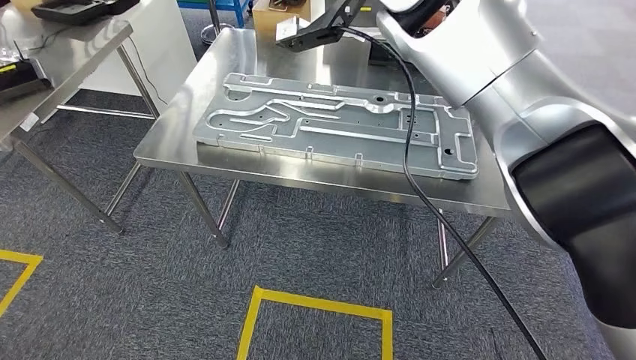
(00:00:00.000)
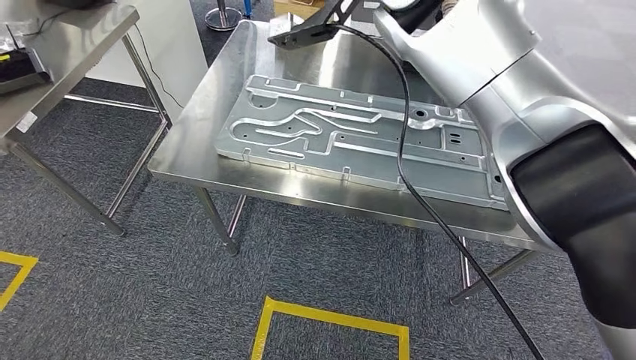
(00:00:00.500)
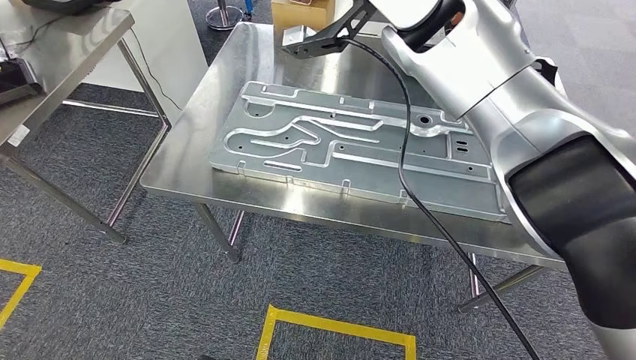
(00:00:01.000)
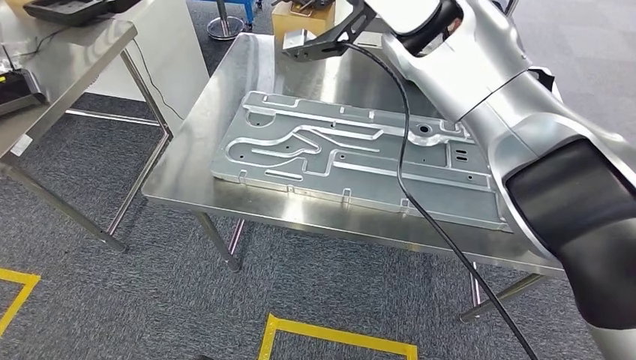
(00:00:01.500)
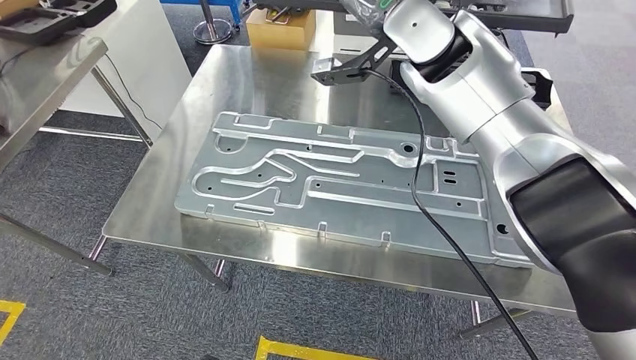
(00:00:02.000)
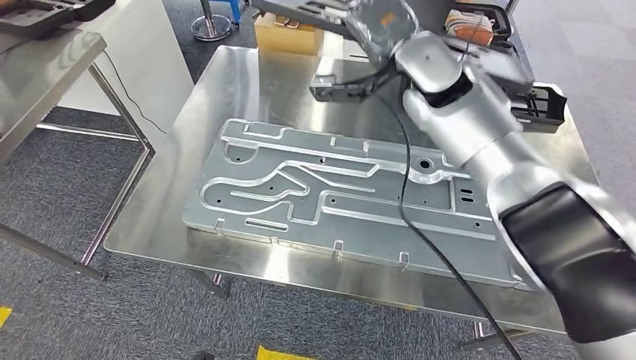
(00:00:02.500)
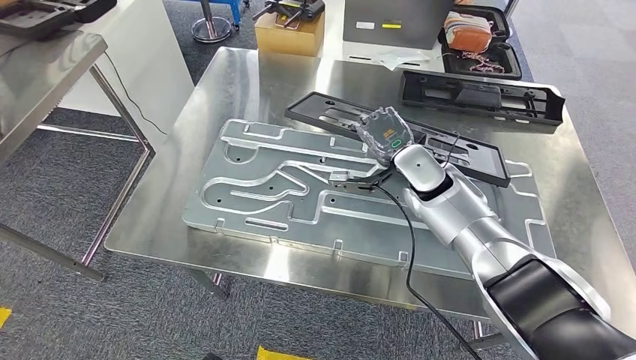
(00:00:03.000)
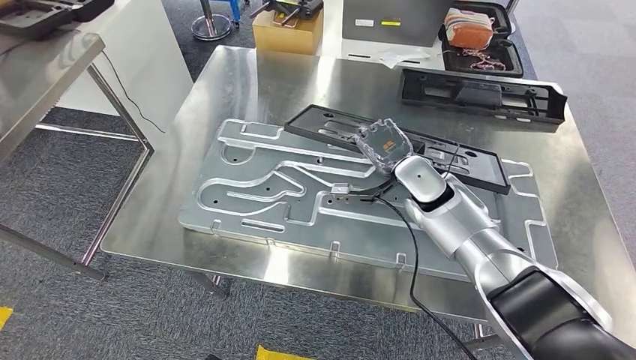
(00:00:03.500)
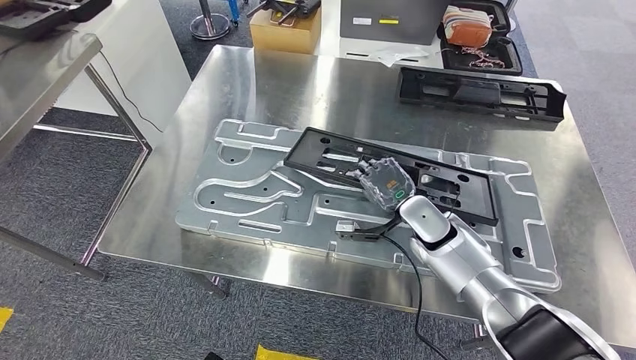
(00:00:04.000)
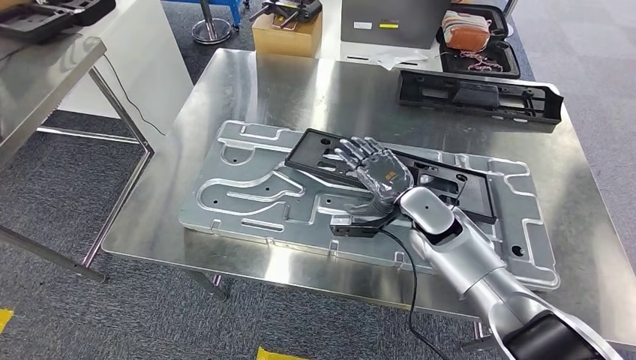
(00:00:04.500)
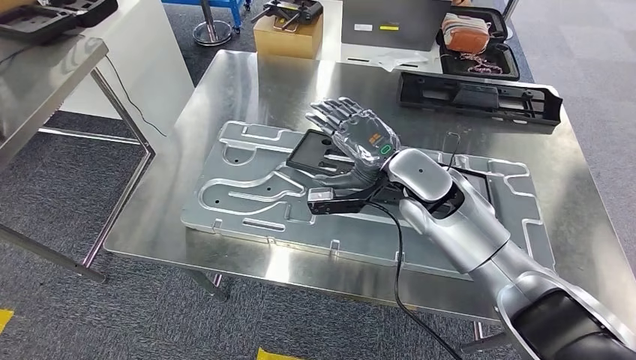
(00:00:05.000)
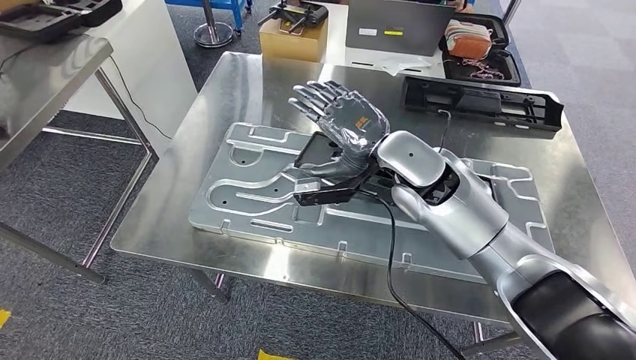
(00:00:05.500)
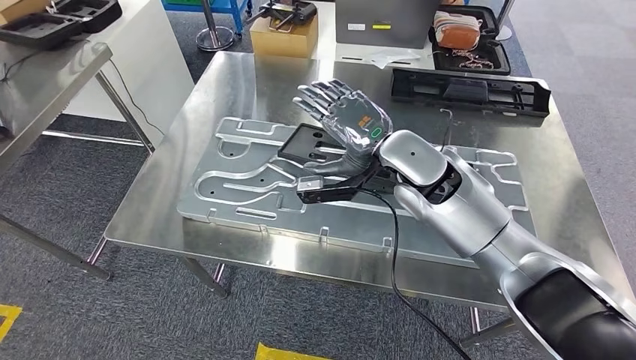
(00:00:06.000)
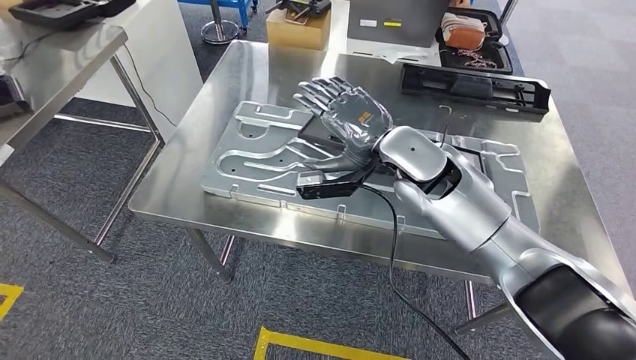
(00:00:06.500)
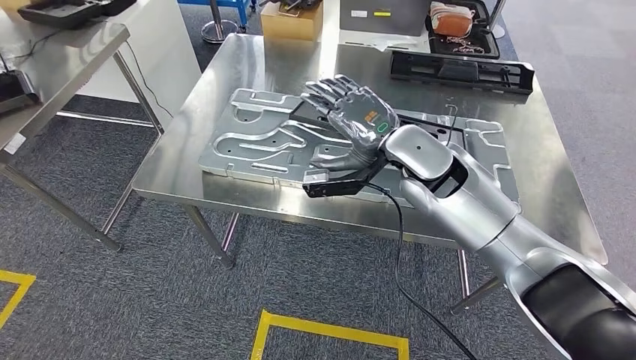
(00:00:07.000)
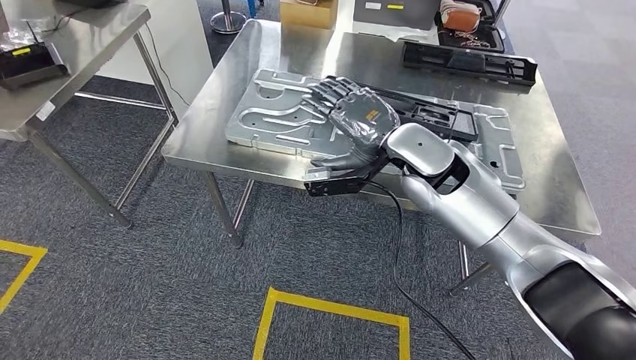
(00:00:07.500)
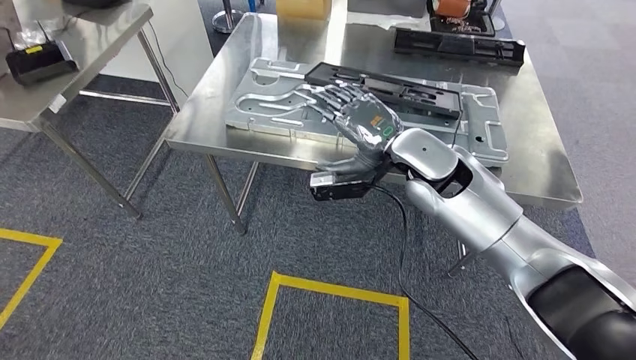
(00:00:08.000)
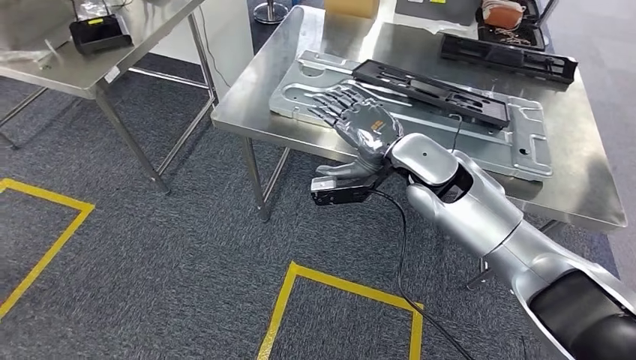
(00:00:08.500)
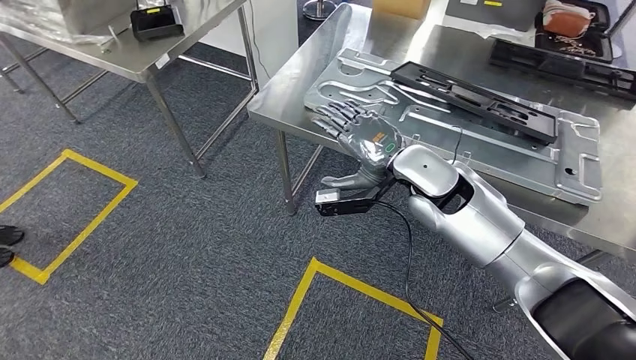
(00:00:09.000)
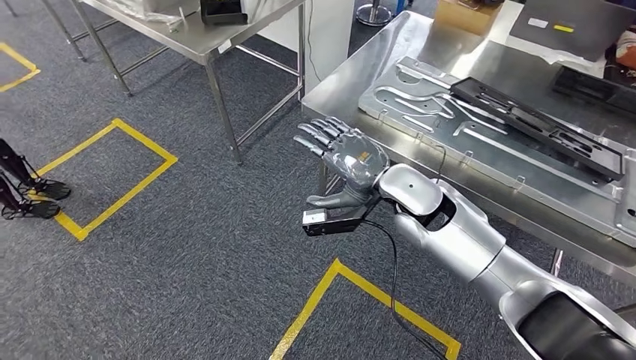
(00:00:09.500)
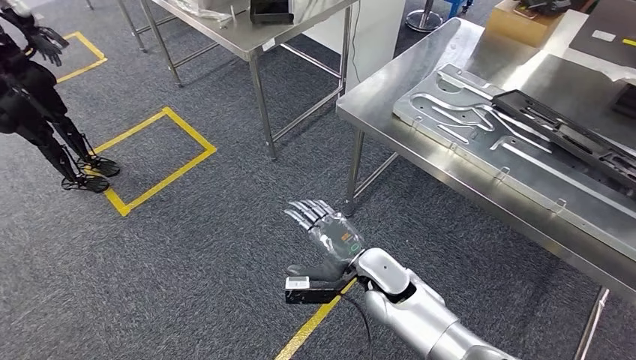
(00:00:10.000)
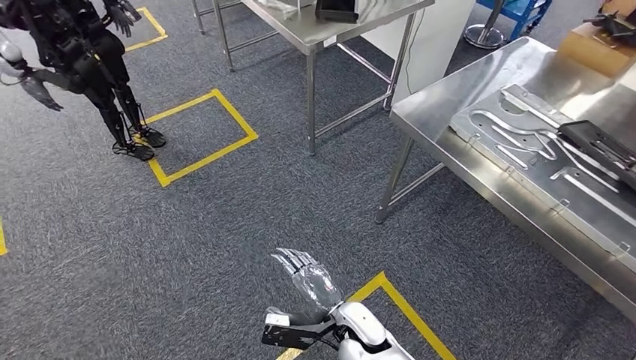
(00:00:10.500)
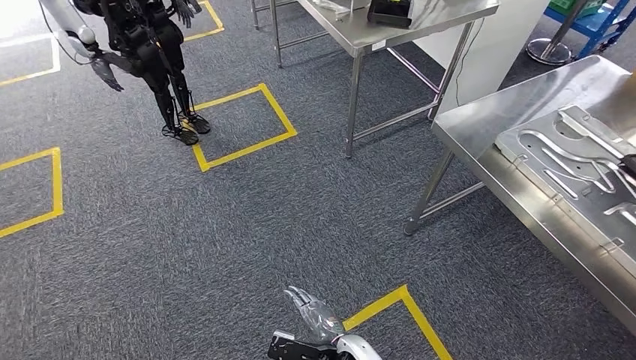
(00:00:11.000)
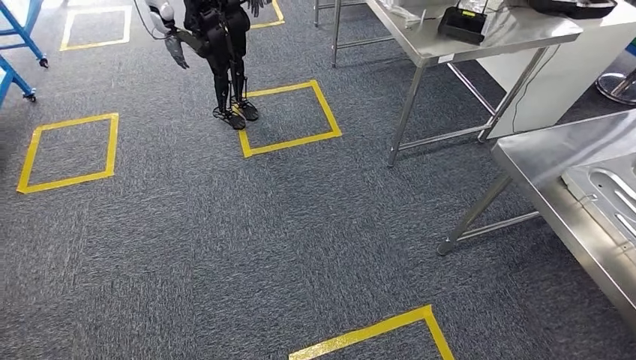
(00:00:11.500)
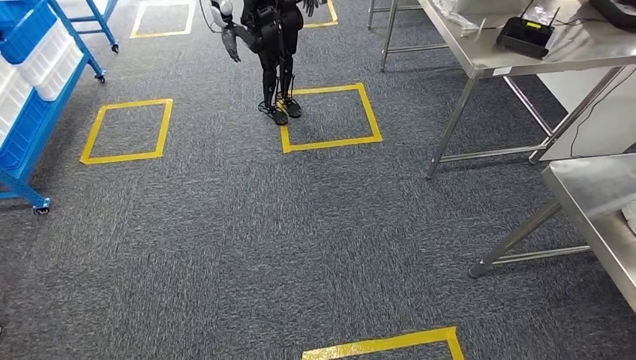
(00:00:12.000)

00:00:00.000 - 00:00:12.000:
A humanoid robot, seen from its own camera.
Step, 00:00:03.500 - 00:00:08.000: Insert the large material into the corresponding slot on the workbench.

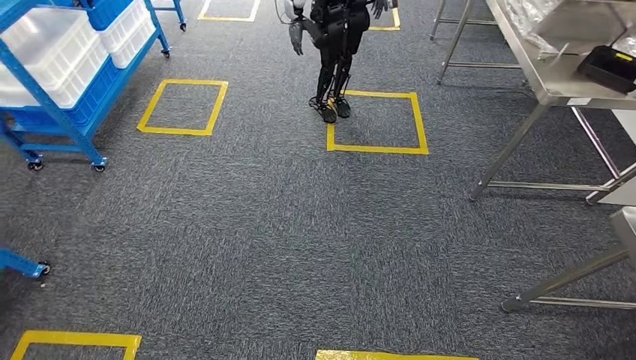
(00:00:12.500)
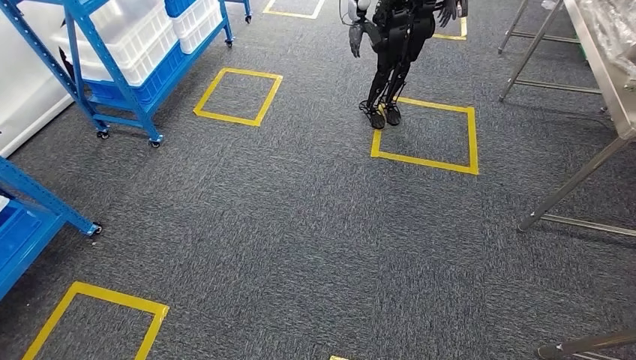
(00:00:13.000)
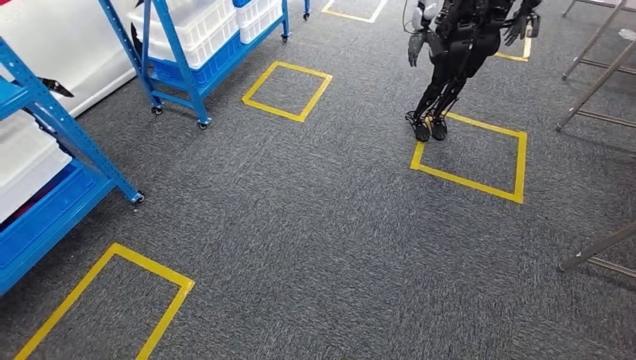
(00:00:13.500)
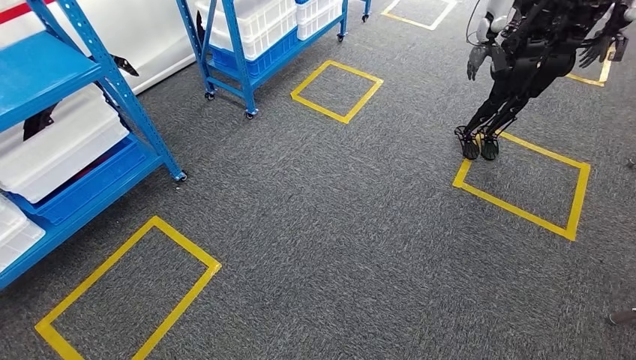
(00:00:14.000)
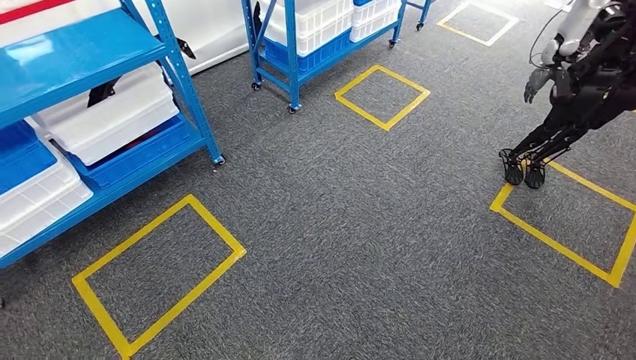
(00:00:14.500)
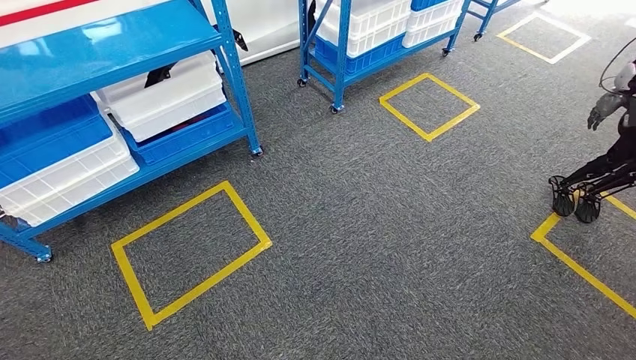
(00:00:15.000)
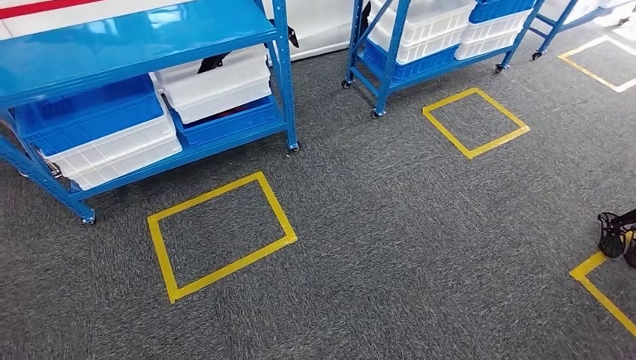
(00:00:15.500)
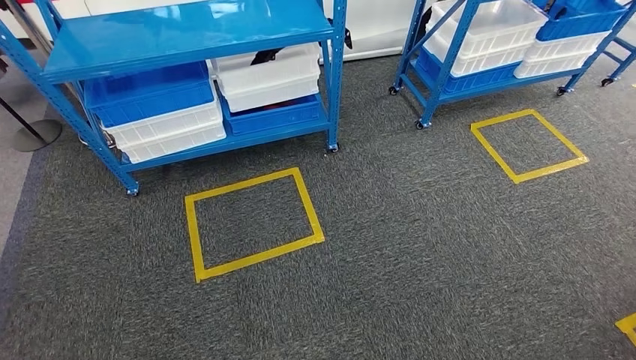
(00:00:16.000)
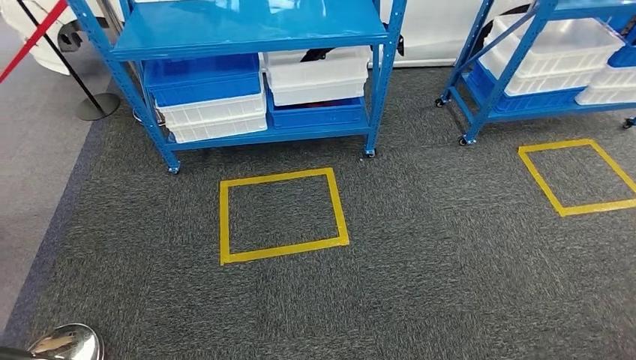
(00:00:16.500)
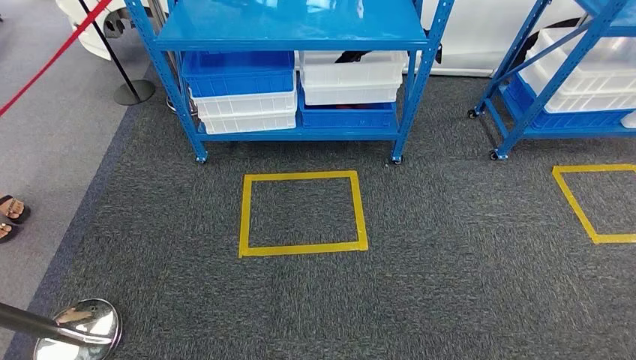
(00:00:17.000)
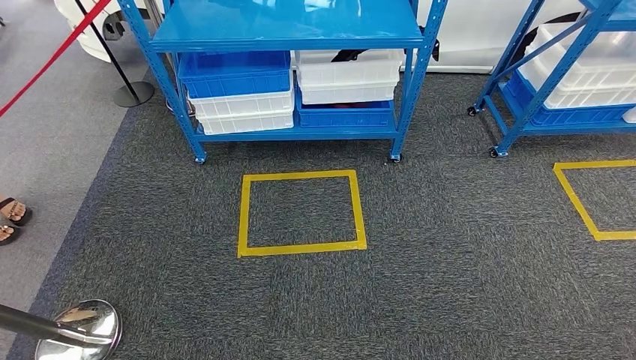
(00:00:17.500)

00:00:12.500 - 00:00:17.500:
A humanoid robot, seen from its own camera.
Step, 00:00:12.500 - 00:00:17.500: Move to the initial position of the shelf.

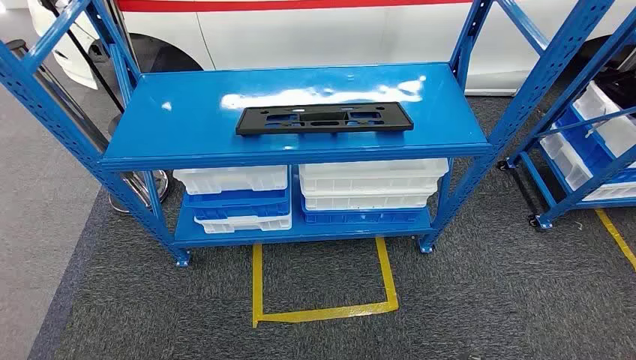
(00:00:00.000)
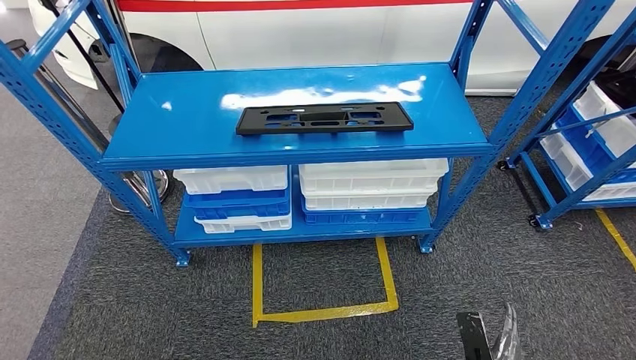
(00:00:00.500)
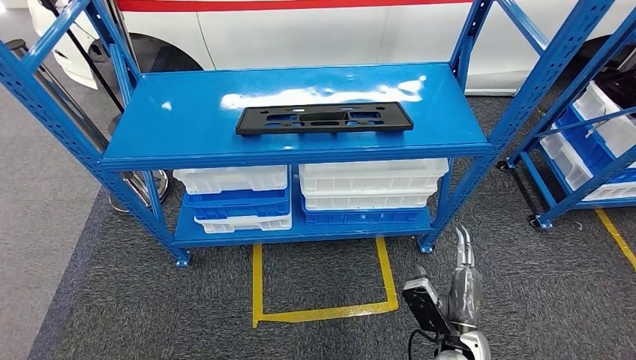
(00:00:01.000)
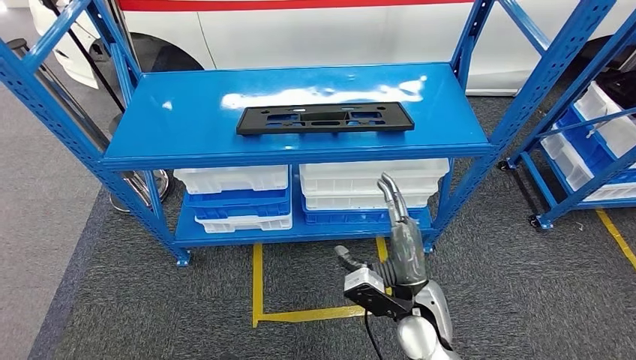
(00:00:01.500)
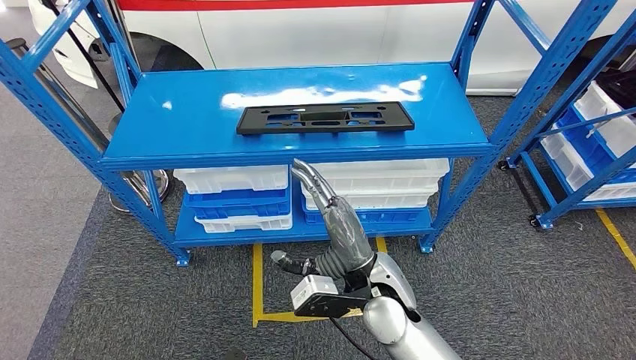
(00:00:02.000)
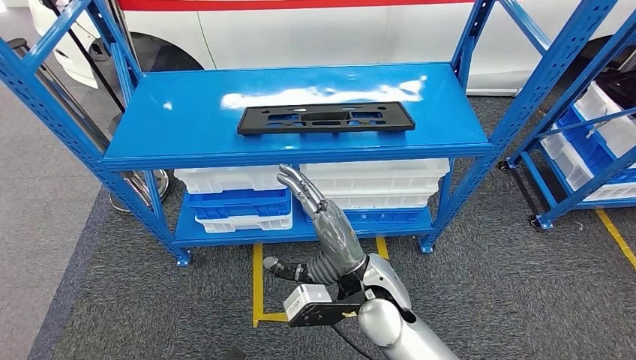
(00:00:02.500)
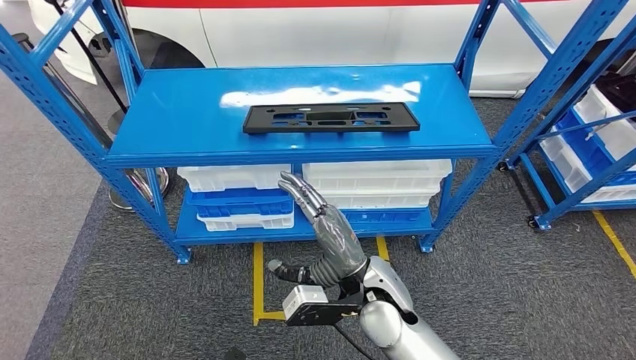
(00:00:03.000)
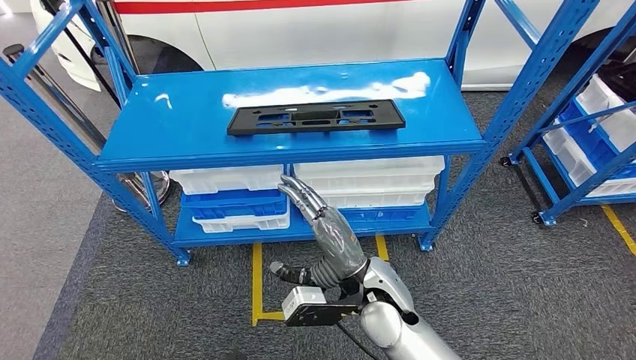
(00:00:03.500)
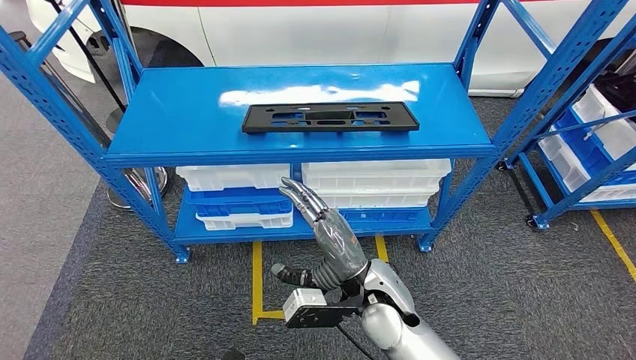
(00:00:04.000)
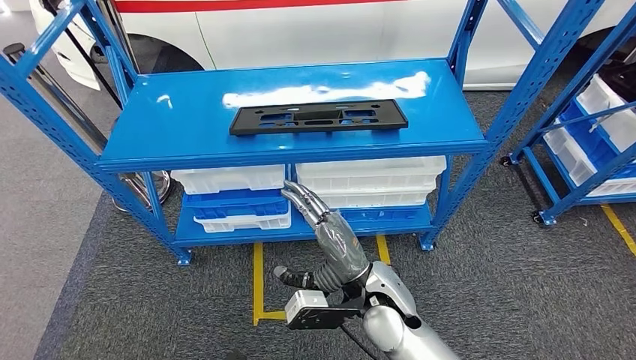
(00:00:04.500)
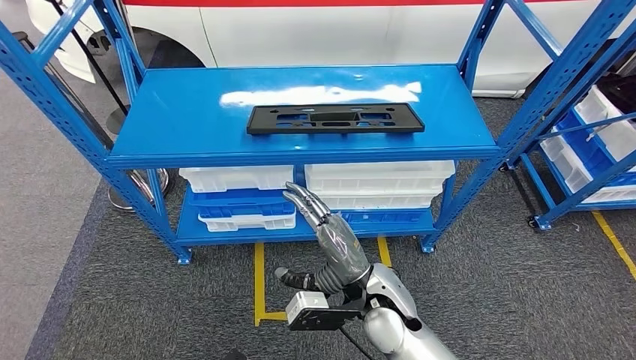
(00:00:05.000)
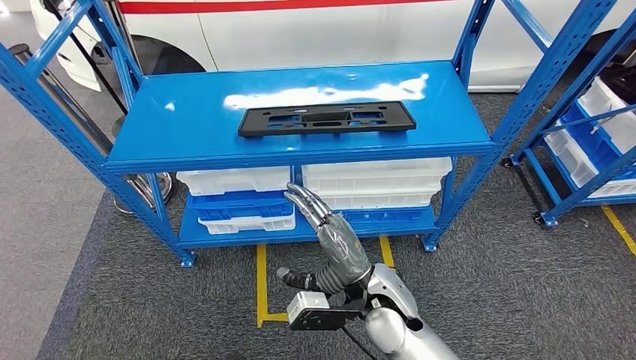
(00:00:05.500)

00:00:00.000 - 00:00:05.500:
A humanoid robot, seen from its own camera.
00:00:03.500 - 00:00:05.500: The hands move only a little.
